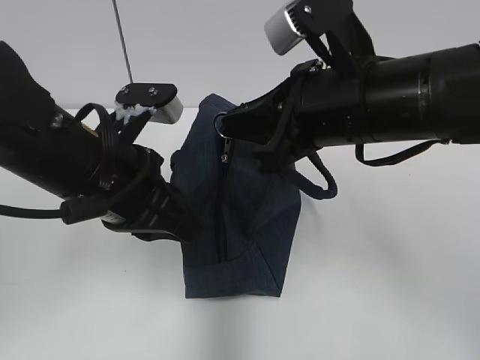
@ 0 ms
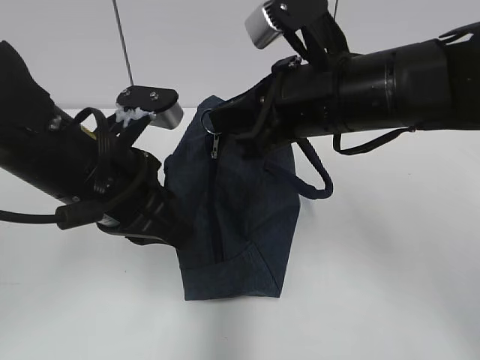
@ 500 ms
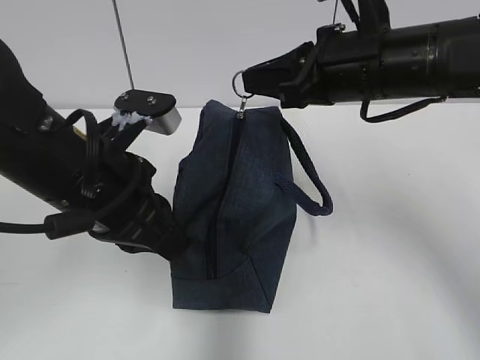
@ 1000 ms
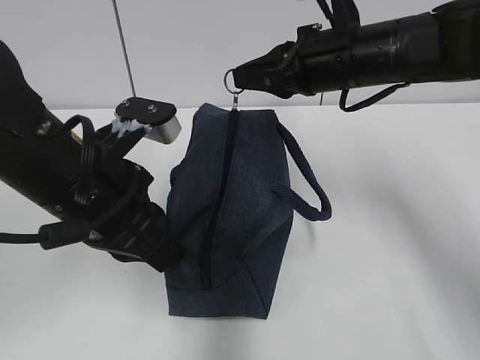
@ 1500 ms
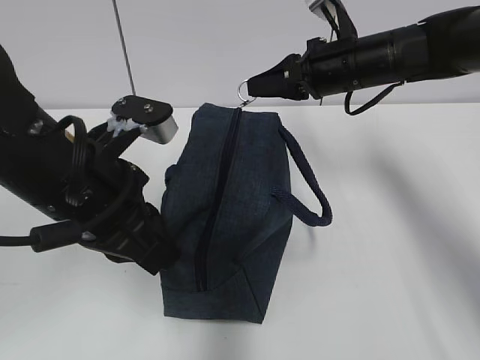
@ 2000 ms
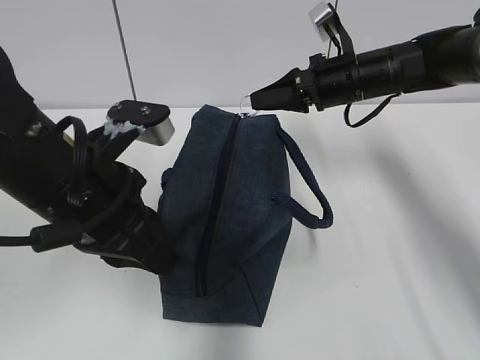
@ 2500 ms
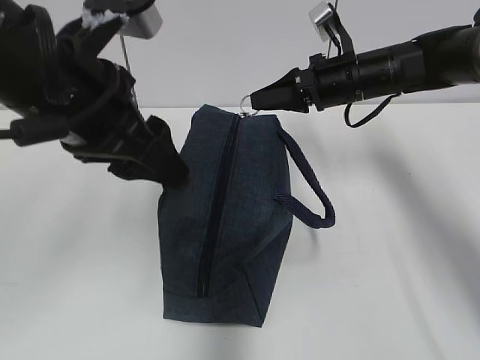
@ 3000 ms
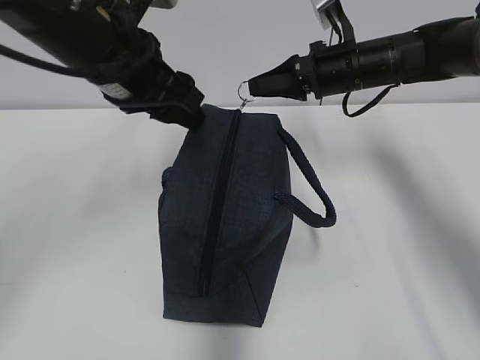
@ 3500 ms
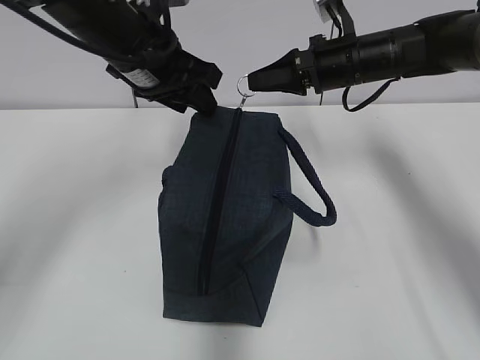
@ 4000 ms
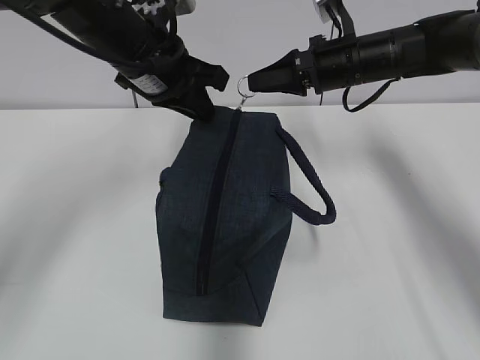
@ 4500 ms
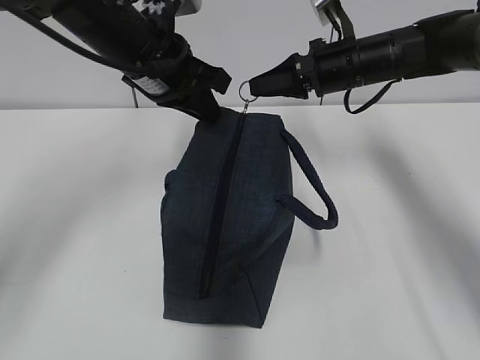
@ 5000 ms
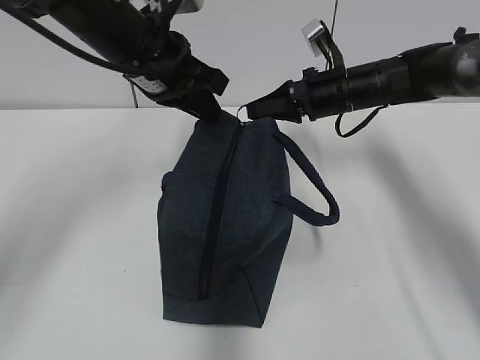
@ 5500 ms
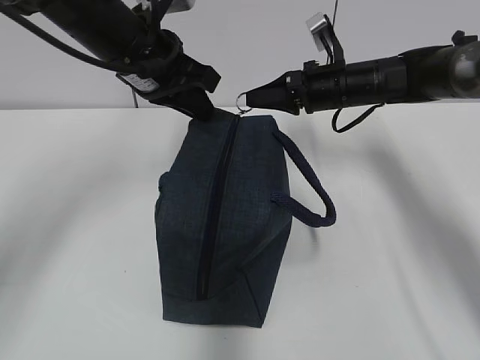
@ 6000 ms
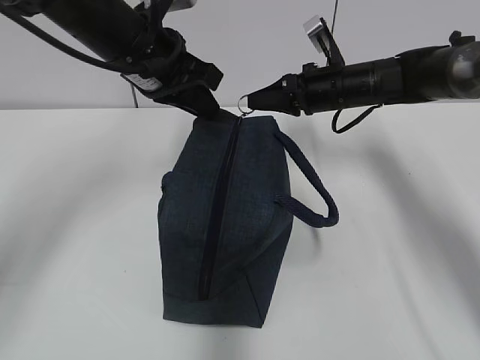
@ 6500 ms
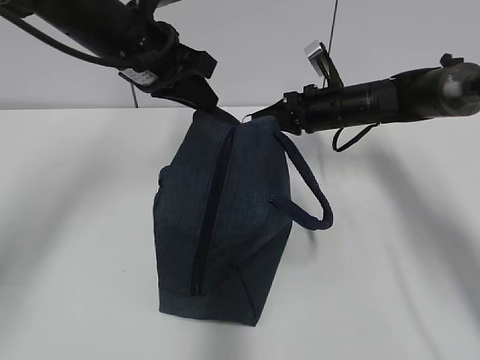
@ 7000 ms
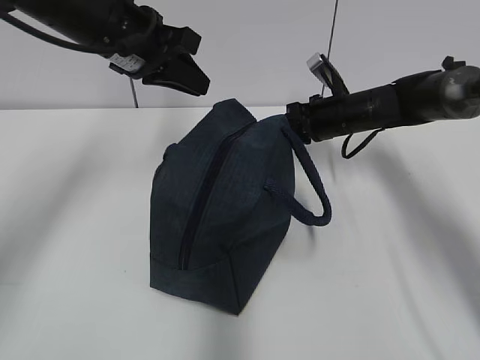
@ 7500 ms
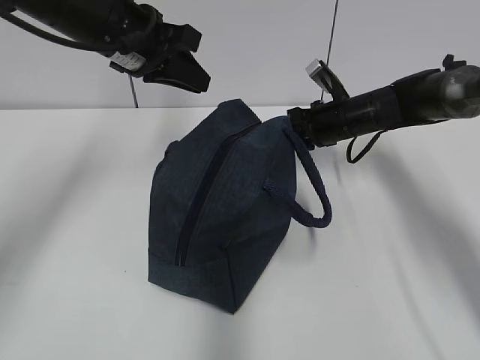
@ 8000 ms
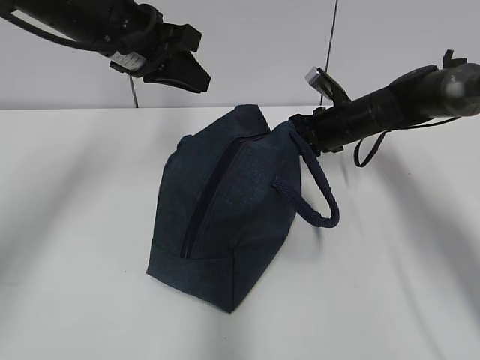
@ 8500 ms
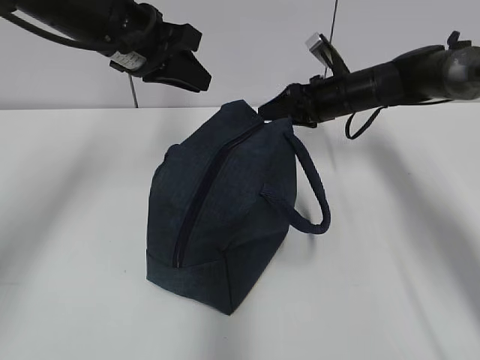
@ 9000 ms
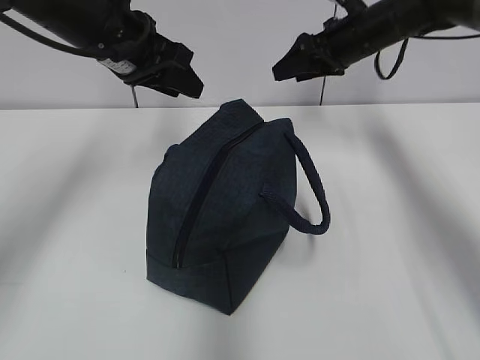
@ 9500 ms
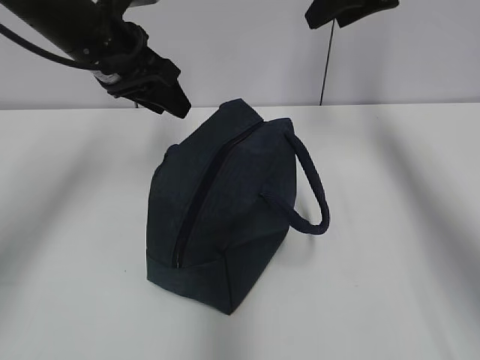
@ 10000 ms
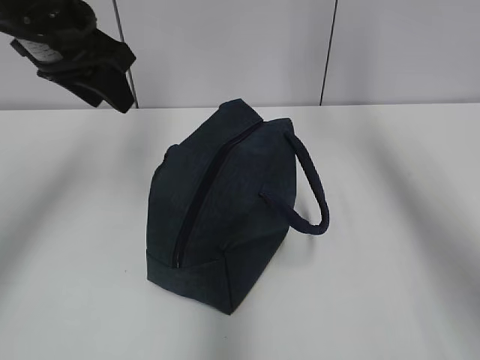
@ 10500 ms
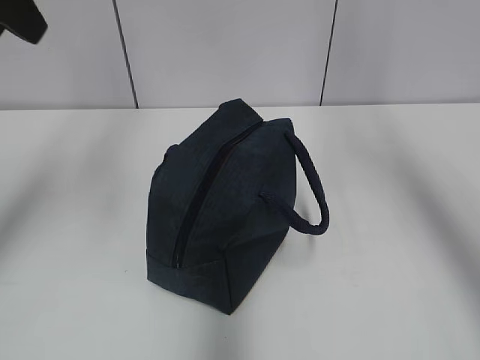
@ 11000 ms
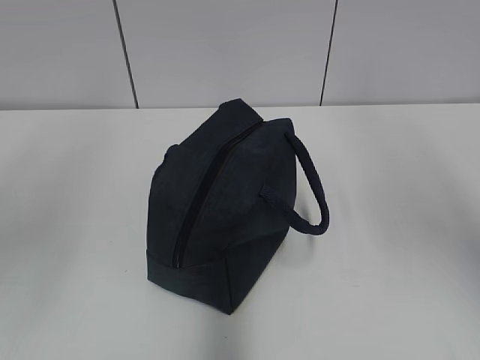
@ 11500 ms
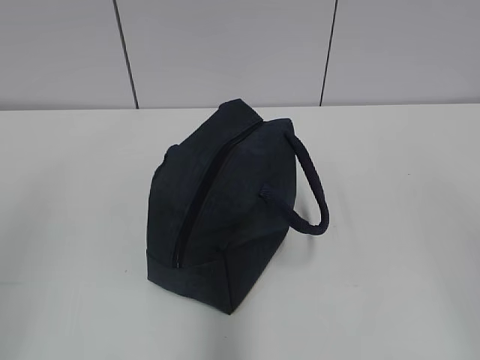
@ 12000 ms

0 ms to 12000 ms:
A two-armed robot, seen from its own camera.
Step, 0 ms to 6500 ms: Grab the lunch bag with your left hand.
Step, 7000 ms to 8500 ms: Pull the zipper with your right hand.
0 ms to 2000 ms: The right gripper travels forward by approximately 15 cm.
2000 ms to 4000 ms: The left gripper shifts approximately 15 cm forward, and opens its fingers.
4000 ms to 6000 ms: The left gripper closes up.
6000 ms to 8000 ms: The right gripper is displaced downward by some 5 cm.
8000 ms to 10000 ms: The right gripper shifts roughly 25 cm upward, and opens its fingers, while the left gripper opens.
10000 ms to 12000 ms: The left gripper is displaced backward and to the left by approximately 35 cm, while the right gripper moves backward, roughly 40 cm.
